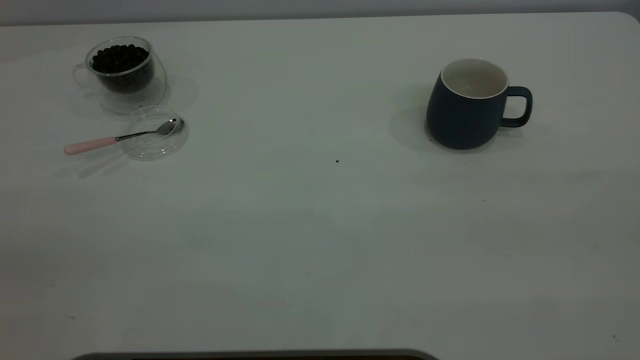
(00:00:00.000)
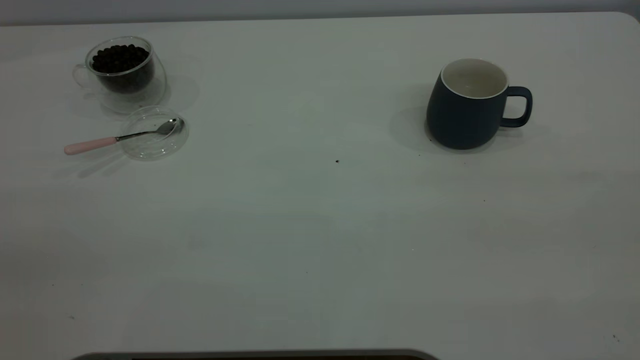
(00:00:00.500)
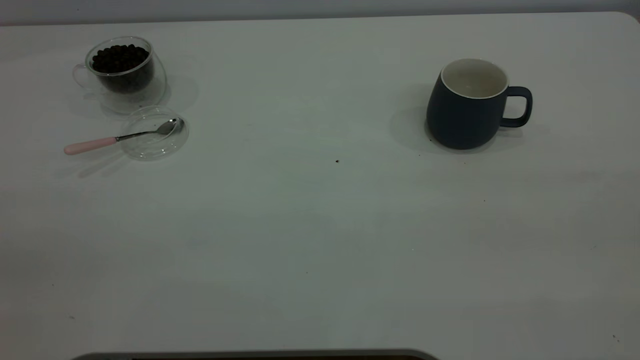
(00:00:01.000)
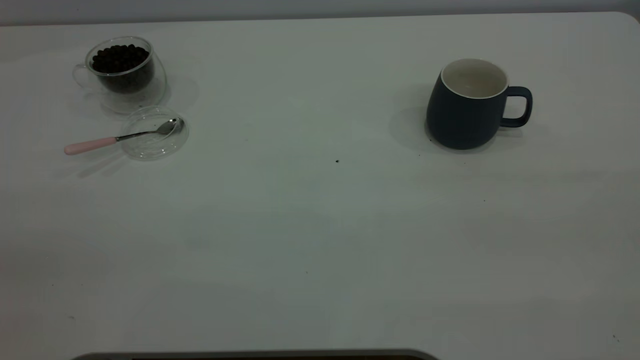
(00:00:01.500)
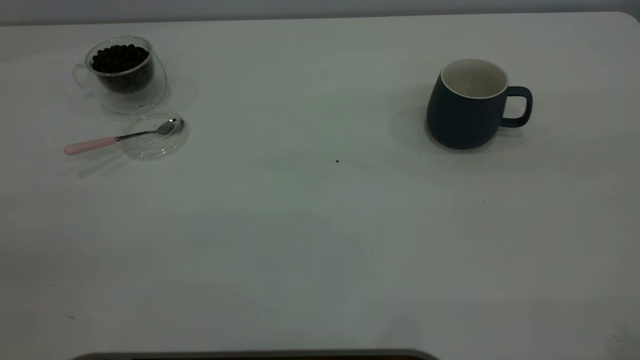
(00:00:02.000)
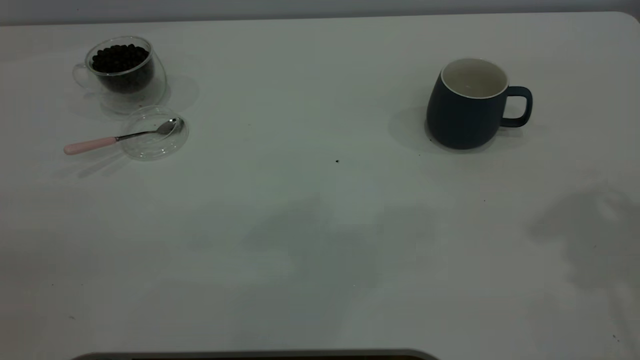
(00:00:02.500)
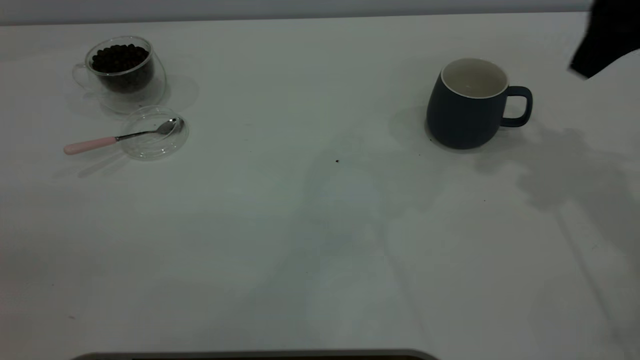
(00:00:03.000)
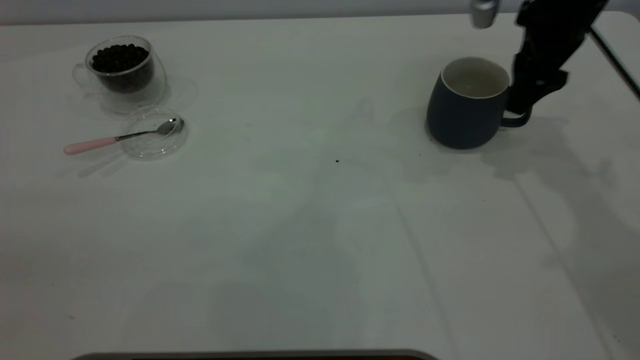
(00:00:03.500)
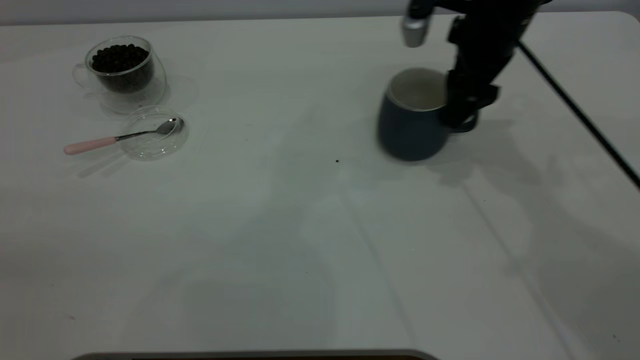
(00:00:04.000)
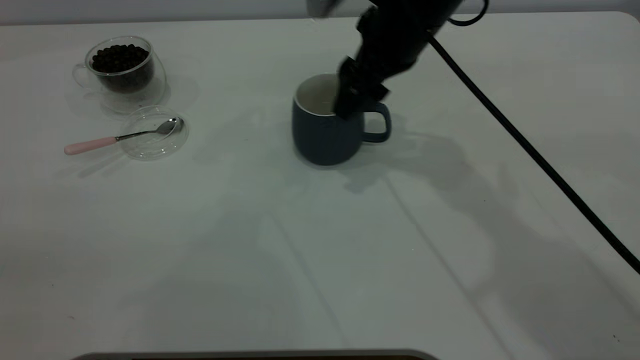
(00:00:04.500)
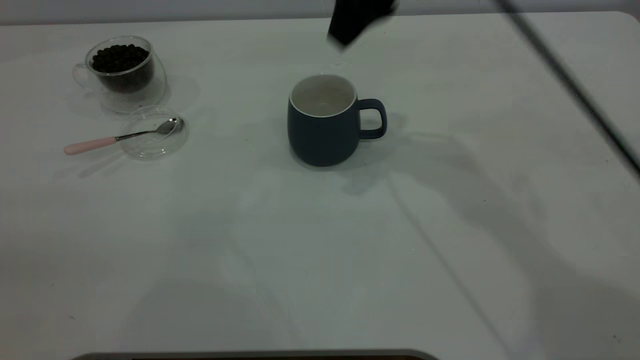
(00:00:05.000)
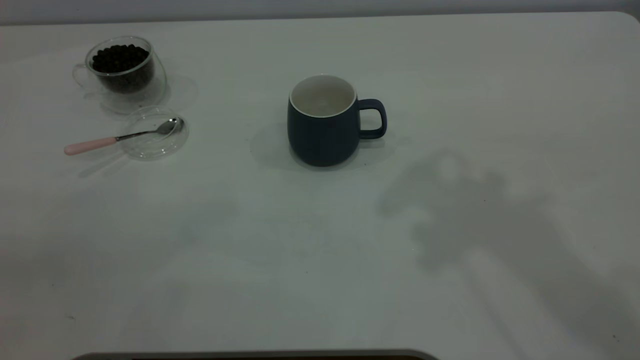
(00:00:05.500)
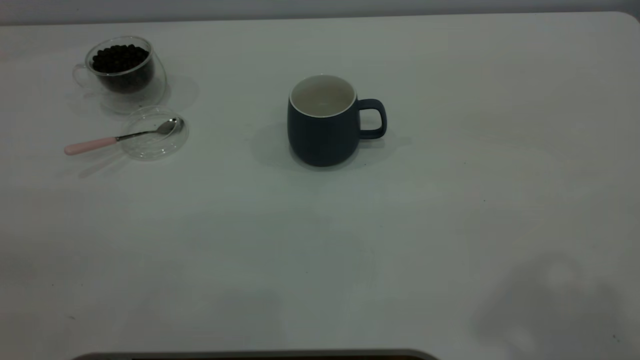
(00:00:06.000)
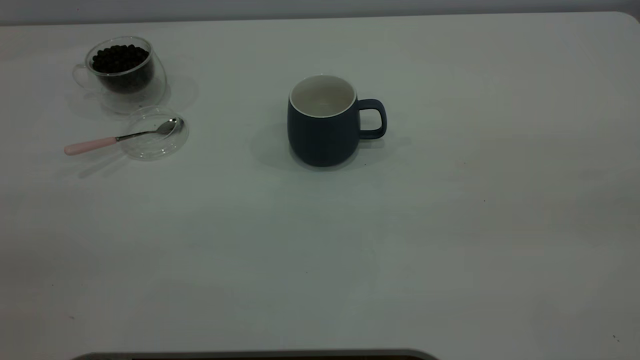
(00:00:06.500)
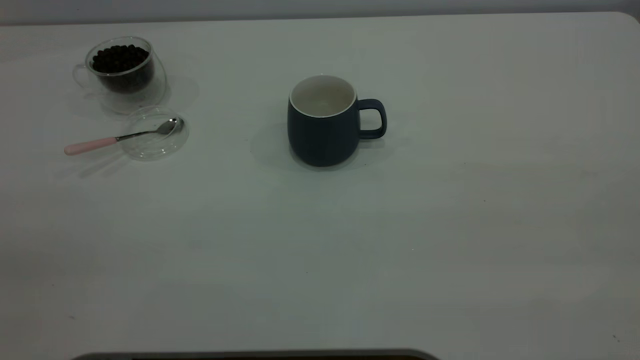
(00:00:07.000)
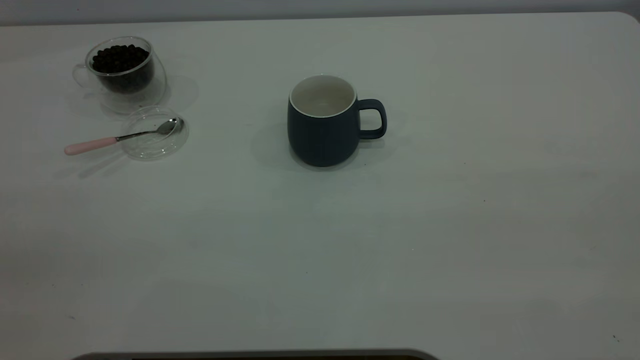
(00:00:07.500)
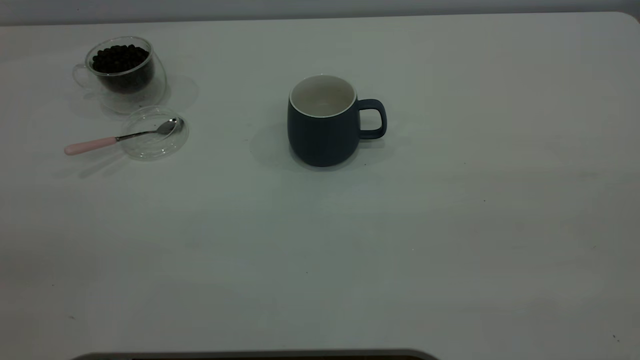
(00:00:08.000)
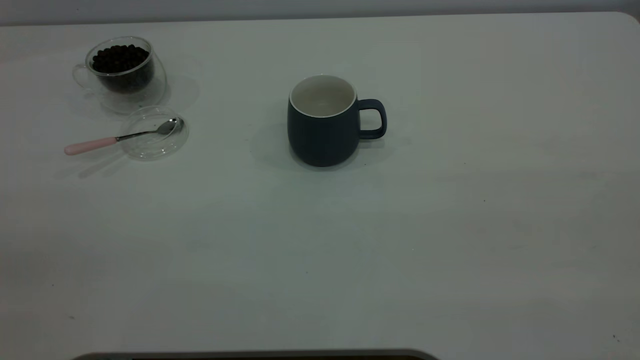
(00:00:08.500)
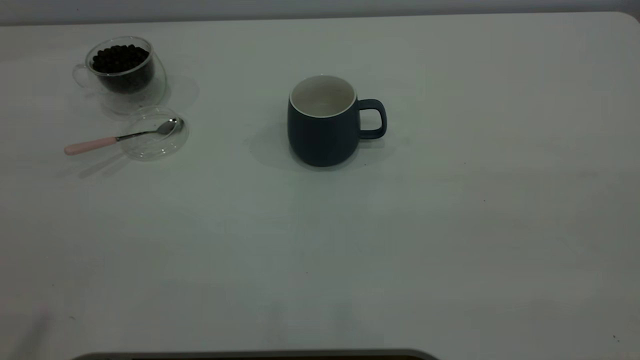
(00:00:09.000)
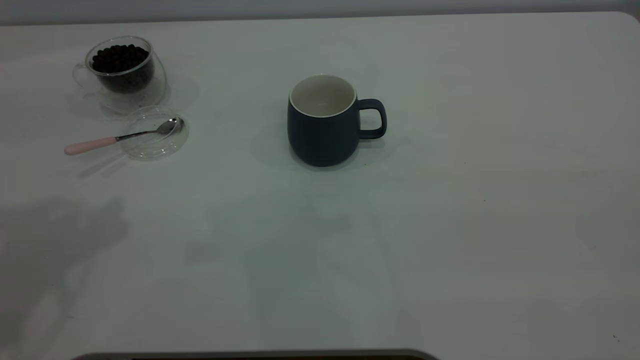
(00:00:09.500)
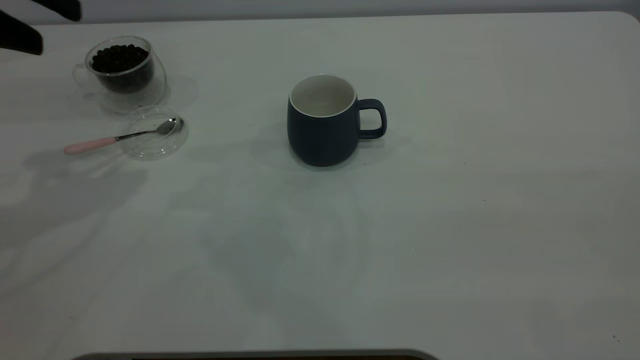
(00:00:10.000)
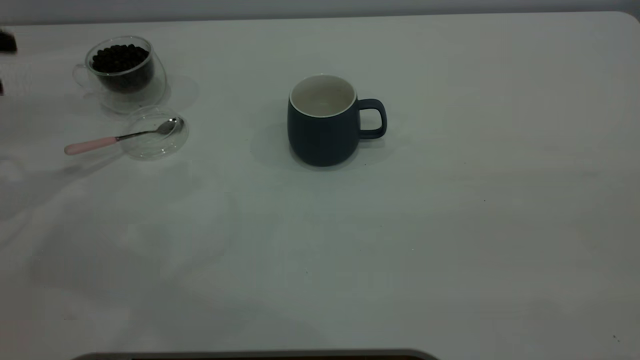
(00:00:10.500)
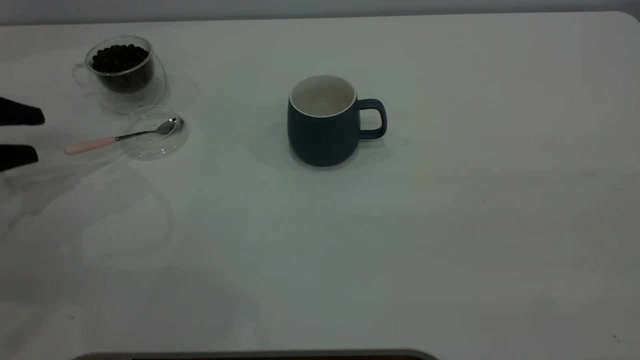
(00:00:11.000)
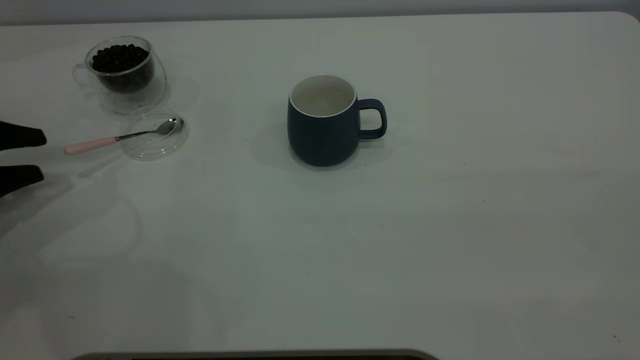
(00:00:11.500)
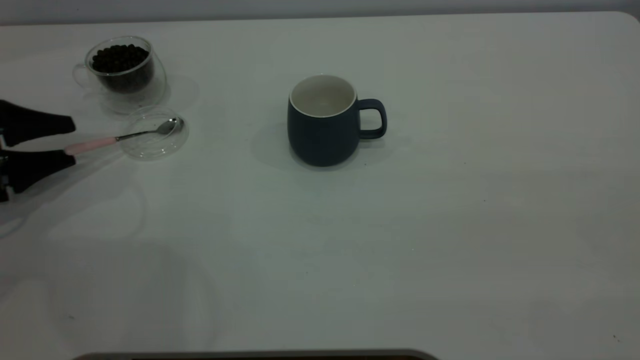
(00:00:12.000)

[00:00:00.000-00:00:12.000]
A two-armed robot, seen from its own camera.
Task of the whole recording: the right gripper place the grey cup in the center of the table, the left gripper take the pink spoon from the cup lid and scoop out the coffee beans from the coffee cup and put them into the grey cup, the left gripper put the spoon back into the cup lid.
Step, 00:00:00.000 to 00:00:04.500: Move the cup to the center of view.
00:00:02.000 to 00:00:04.000: The right gripper is displaced forward, downward and to the left by about 40 cm.
00:00:04.000 to 00:00:06.000: The right gripper goes approximately 40 cm upward and backward.
00:00:08.000 to 00:00:10.000: The left gripper travels forward by some 35 cm.
00:00:10.000 to 00:00:12.000: The left gripper travels downward and to the left by approximately 25 cm.

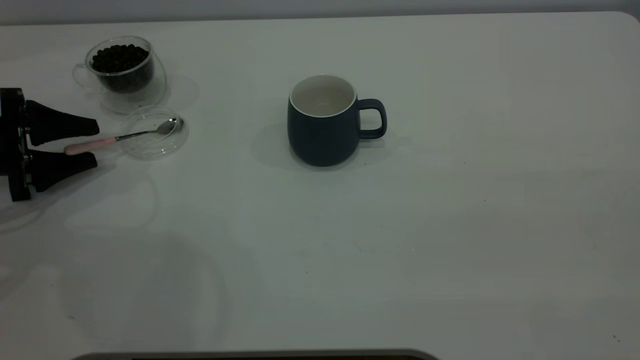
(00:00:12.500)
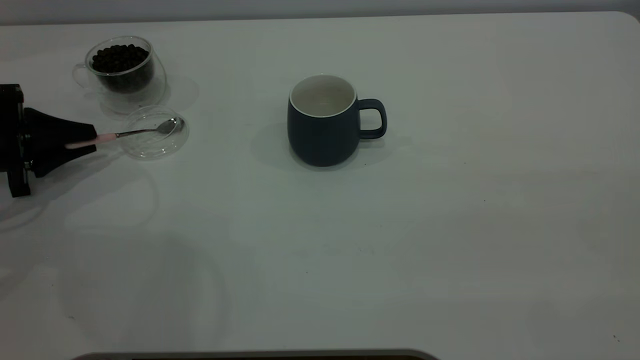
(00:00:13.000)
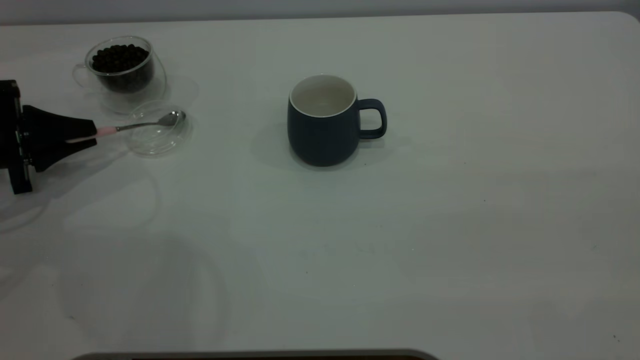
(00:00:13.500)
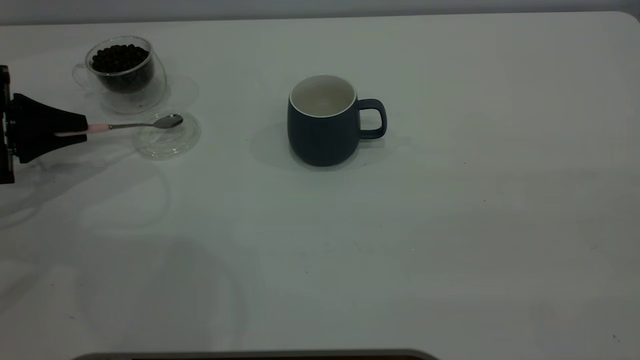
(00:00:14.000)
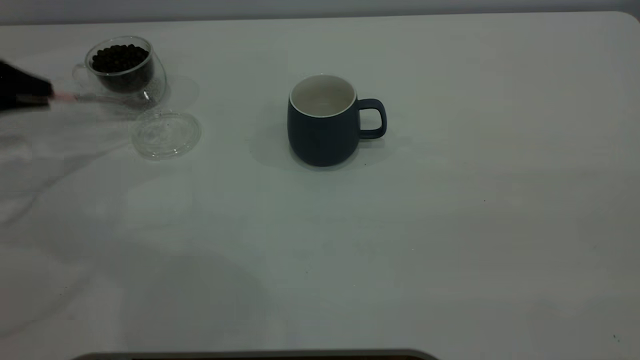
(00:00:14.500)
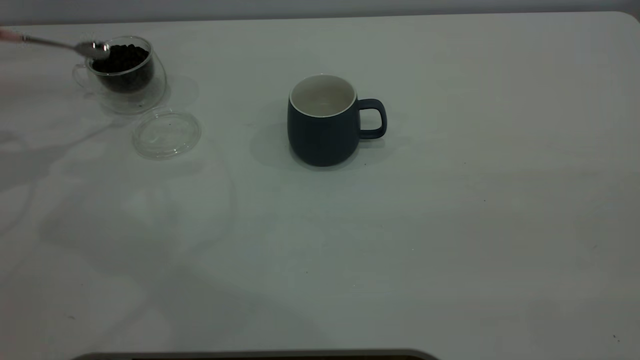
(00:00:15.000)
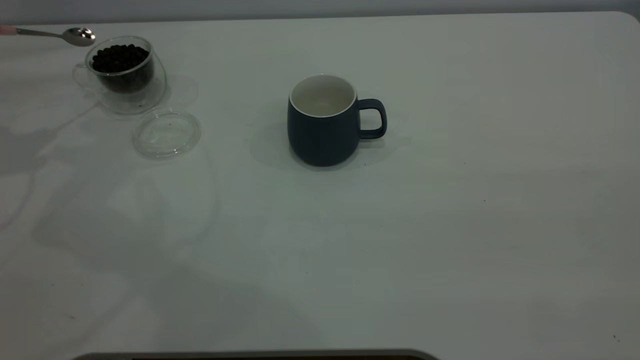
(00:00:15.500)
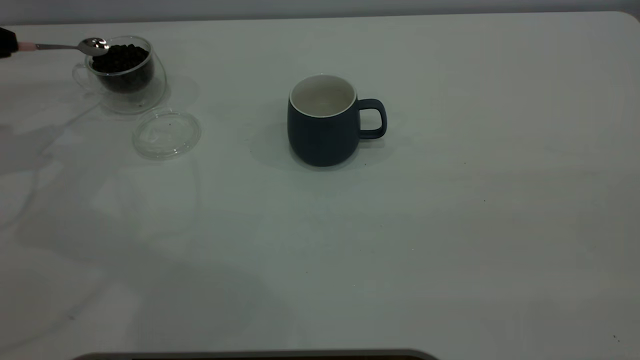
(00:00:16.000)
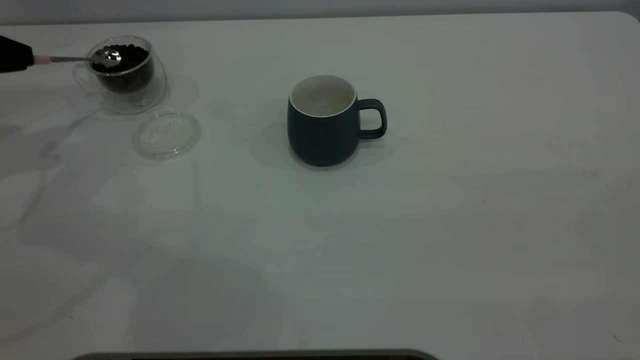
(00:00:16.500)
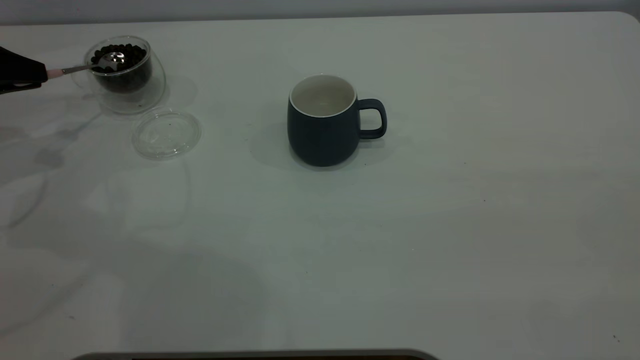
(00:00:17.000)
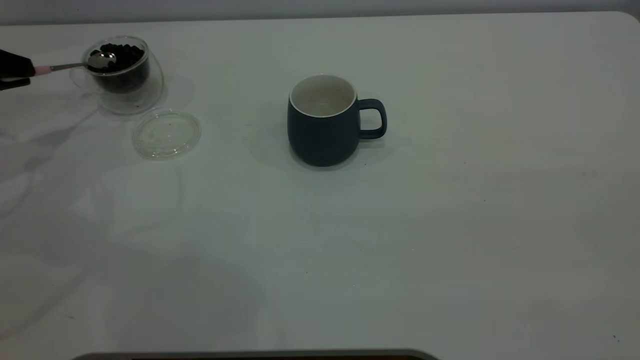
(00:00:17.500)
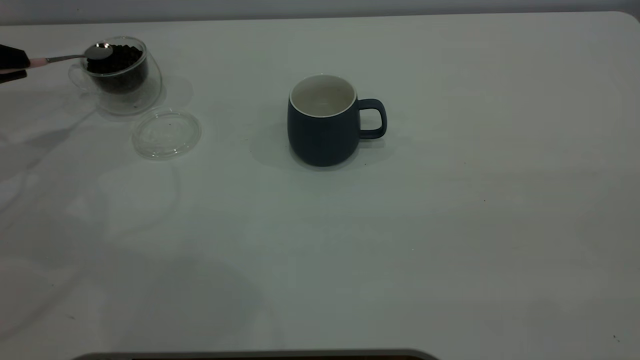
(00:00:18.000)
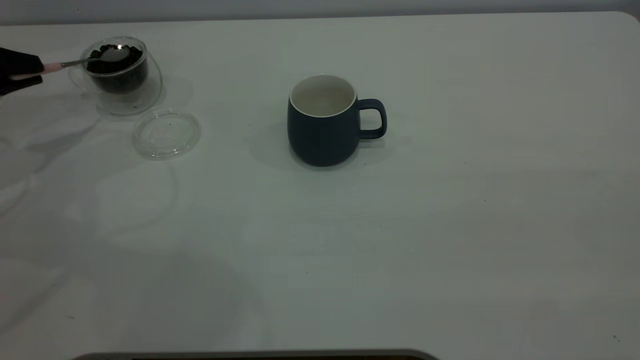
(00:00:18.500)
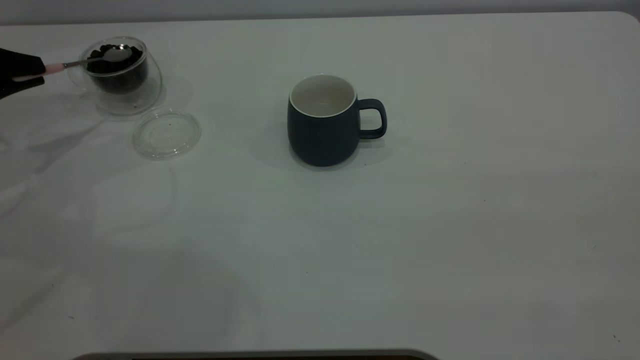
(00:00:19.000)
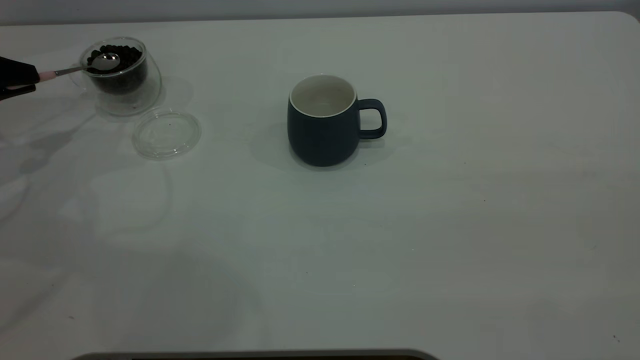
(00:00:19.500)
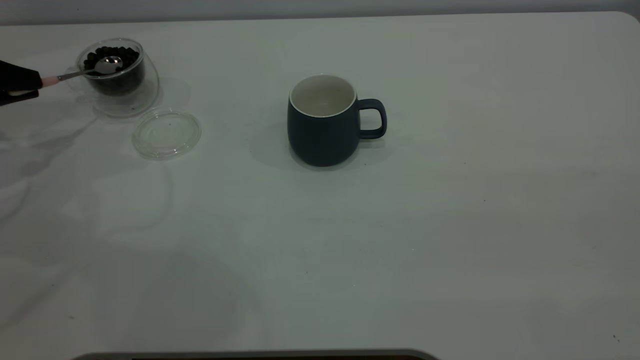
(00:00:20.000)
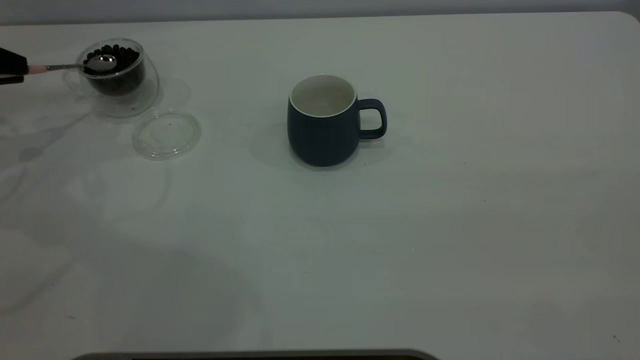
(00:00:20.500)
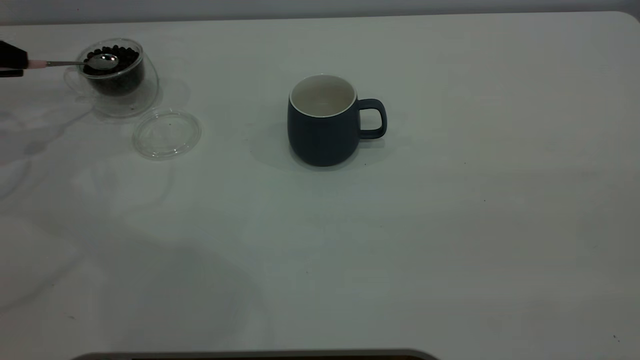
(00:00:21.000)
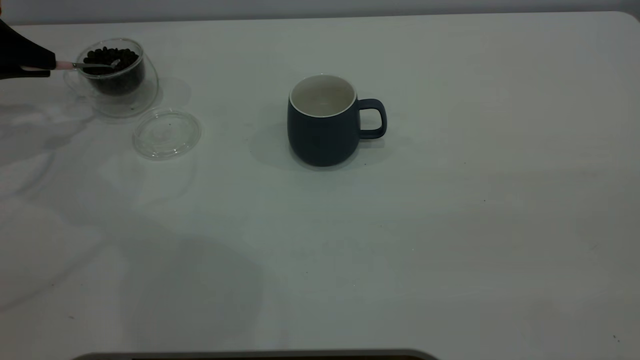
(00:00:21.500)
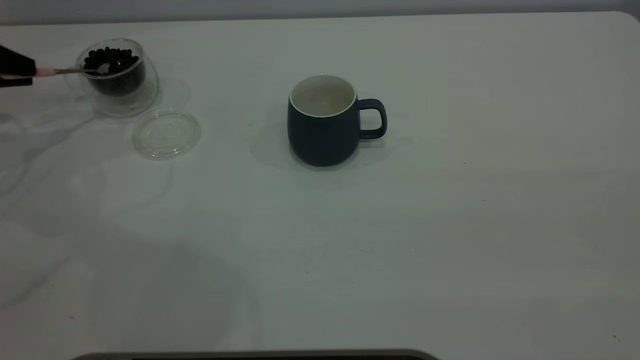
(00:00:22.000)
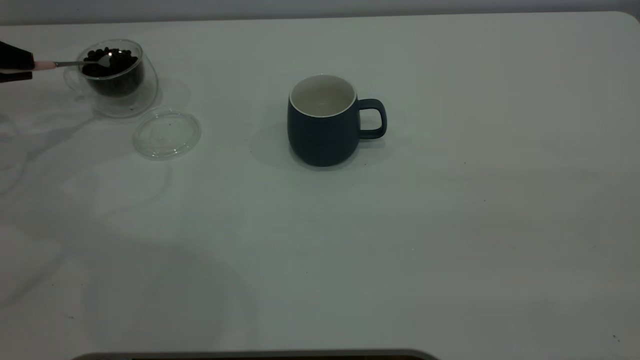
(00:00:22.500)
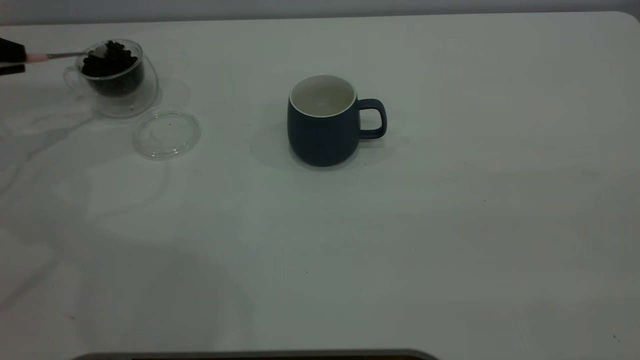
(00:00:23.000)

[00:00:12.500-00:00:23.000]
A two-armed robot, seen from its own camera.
Task of the whole recording: the right gripper place the grey cup in the center of the table, the left gripper take the pink spoon from the cup lid and scoop out the coffee beans from the coffee cup and put them into the grey cup, the left gripper put the spoon back into the cup lid.
00:00:12.500 to 00:00:14.500: The left gripper travels upward by some 10 cm, and closes.
00:00:19.000 to 00:00:21.000: The left gripper moves about 5 cm.
